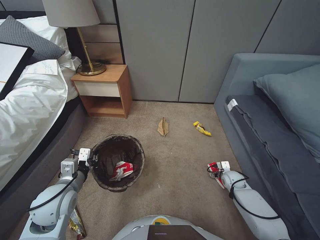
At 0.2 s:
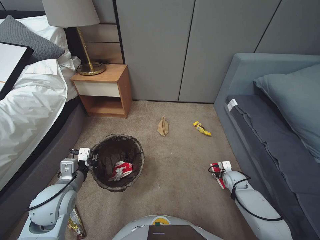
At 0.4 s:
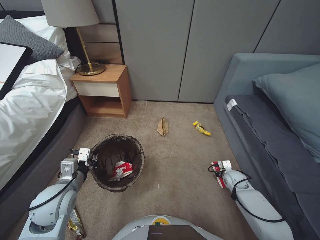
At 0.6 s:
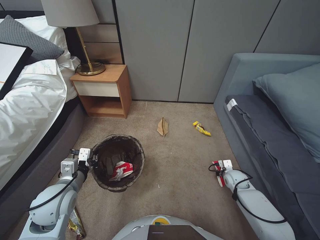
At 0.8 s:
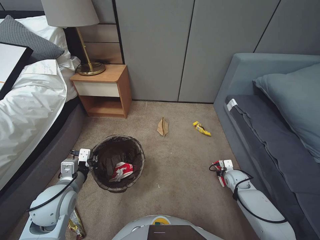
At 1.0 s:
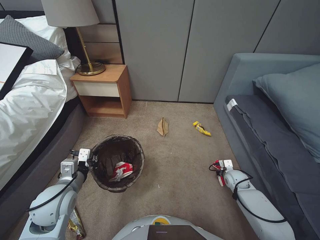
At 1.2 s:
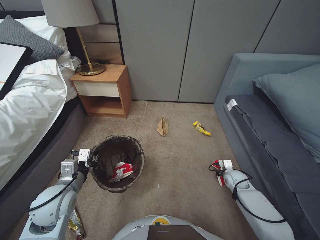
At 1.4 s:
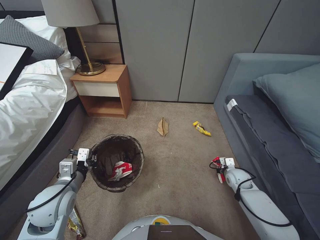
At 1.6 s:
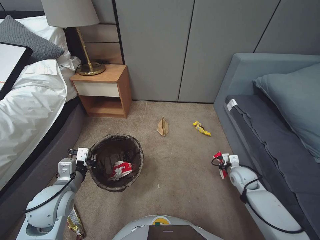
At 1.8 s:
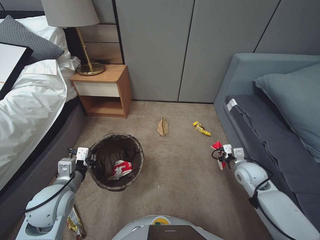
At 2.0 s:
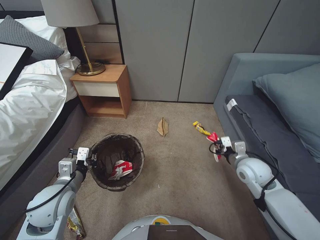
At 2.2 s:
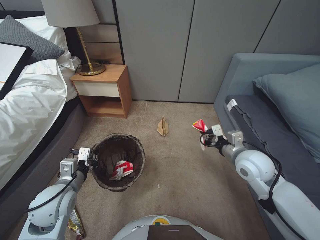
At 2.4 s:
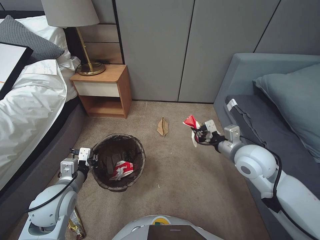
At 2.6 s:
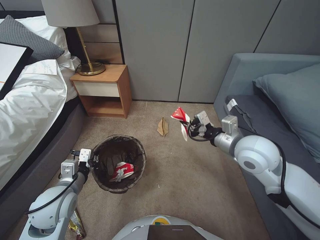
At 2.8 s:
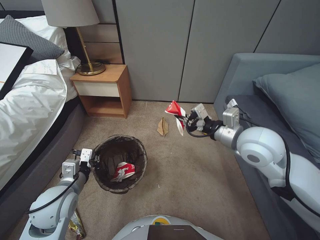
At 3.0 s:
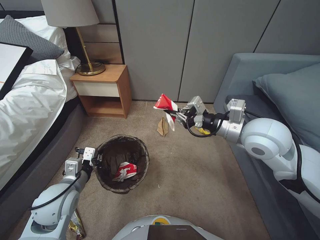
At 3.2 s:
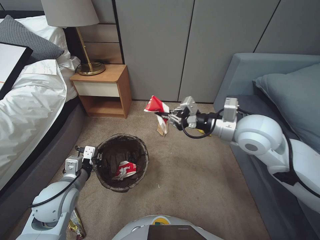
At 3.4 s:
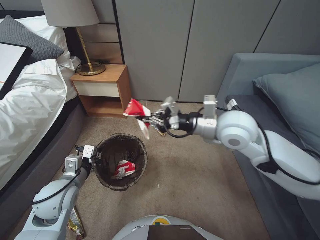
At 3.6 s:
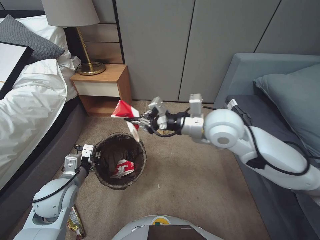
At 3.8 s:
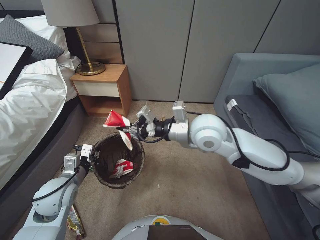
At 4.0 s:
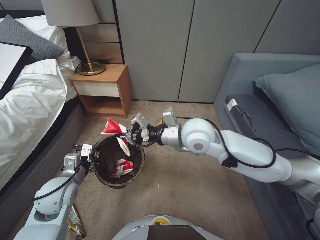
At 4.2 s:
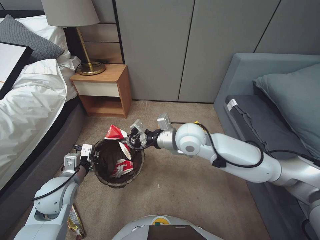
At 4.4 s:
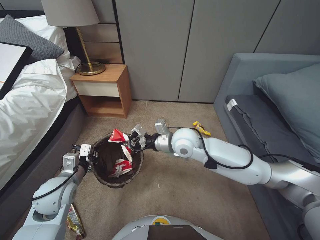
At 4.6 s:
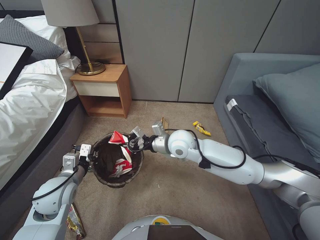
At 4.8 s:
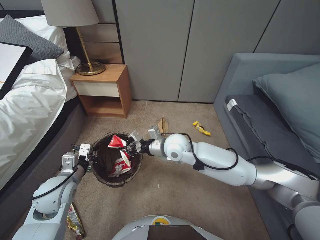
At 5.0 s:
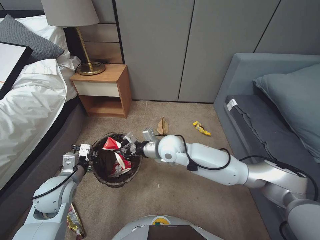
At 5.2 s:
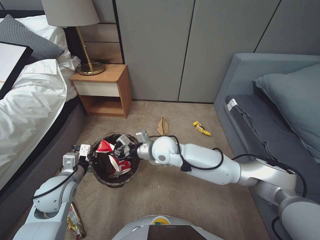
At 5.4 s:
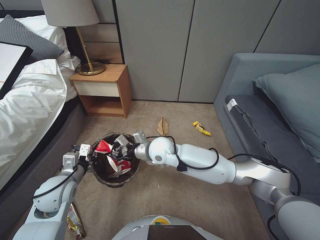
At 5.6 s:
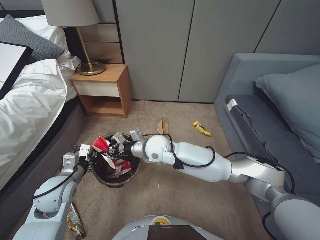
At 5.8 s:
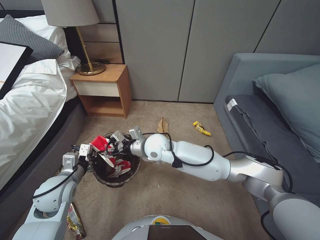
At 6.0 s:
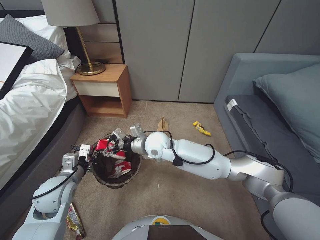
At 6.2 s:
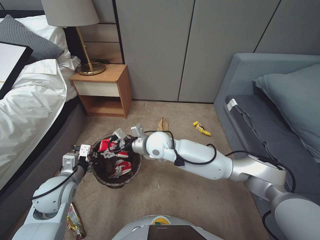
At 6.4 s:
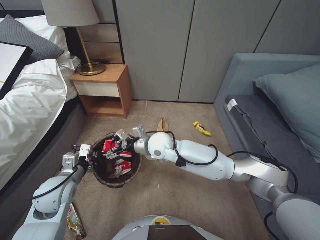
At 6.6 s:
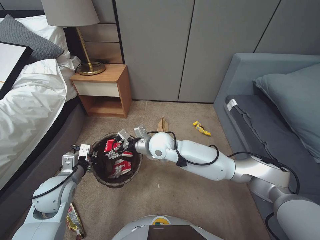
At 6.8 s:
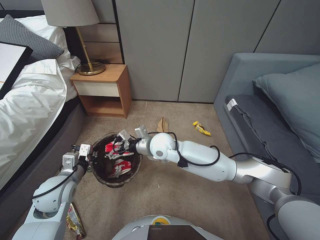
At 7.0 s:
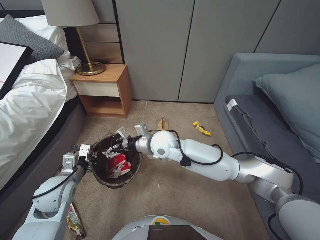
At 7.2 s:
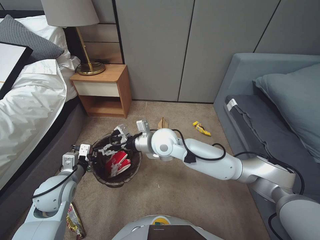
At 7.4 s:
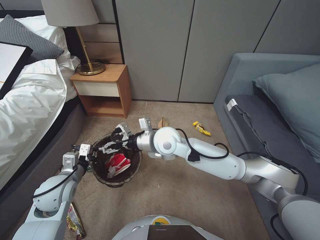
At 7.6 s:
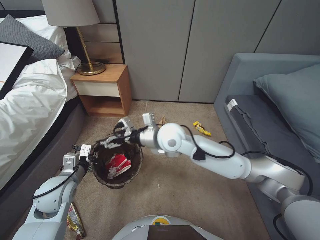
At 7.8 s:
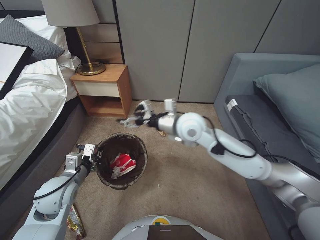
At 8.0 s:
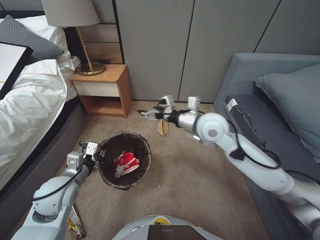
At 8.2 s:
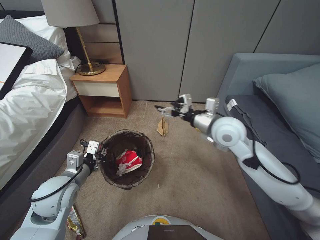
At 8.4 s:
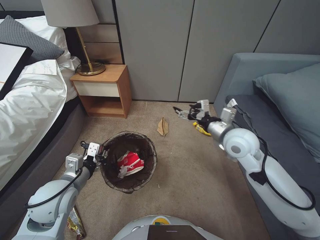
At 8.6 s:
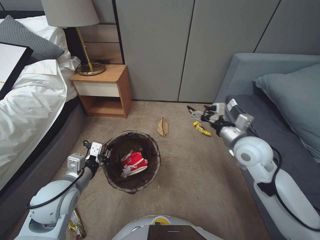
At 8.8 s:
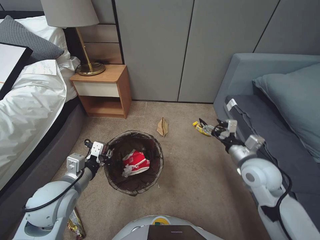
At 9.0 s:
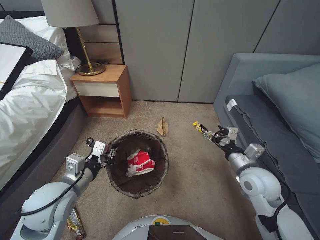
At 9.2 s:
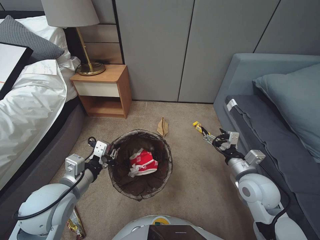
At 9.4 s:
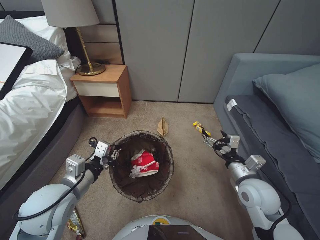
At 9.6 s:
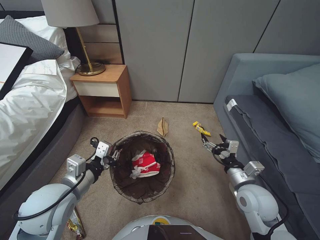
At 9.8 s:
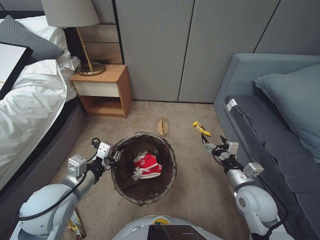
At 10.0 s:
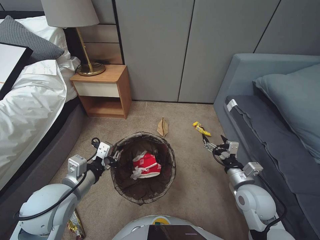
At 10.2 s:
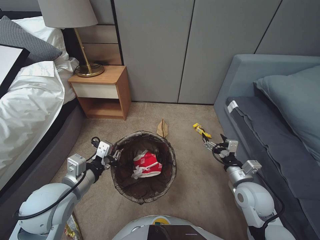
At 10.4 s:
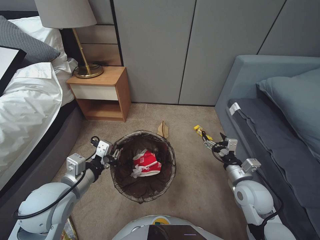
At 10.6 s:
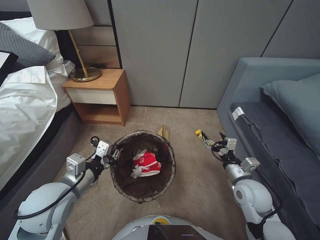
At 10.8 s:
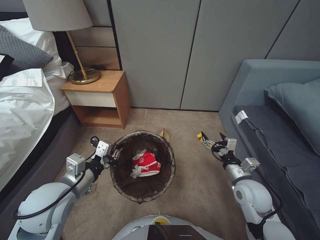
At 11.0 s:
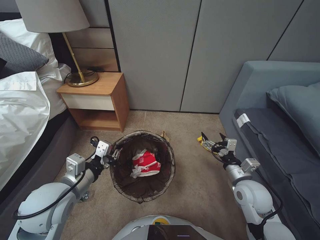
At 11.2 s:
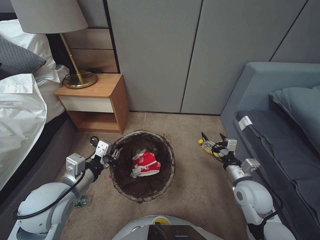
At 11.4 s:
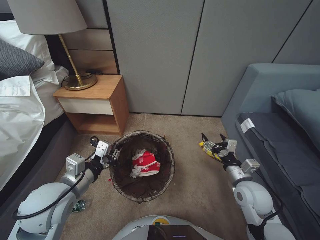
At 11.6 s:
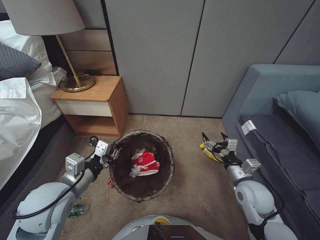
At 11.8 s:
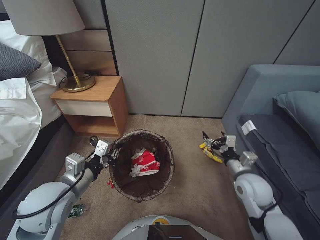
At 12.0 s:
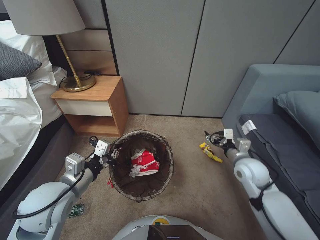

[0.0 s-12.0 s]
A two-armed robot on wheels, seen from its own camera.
Task of the whole recording: Pick up the trash bin, then pick up the garbage from the floor and place it into the trash bin.
0.0 to 1.6 s: The right gripper goes approximately 5 cm upward, and closes its fingers.
1.6 to 3.0 s: The right gripper shifts roughly 35 cm upward.
3.0 to 4.4 s: The right gripper travels to the left and downward by some 20 cm.
4.4 to 6.0 s: The right gripper heads to the left and downward, covering about 10 cm, and opens up.
6.0 to 7.6 s: The right gripper is displaced upward by approximately 5 cm.
7.6 to 9.0 s: The right gripper moves to the right, about 30 cm. Meanwhile the left gripper travels upward by approximately 5 cm.
9.0 to 10.4 s: The right gripper shifts roughly 5 cm downward.
10.4 to 12.0 s: The right gripper travels forward by about 5 cm.

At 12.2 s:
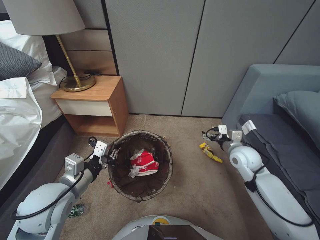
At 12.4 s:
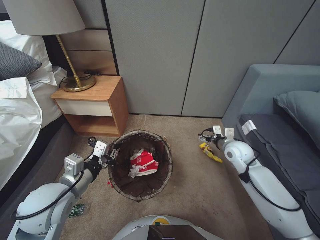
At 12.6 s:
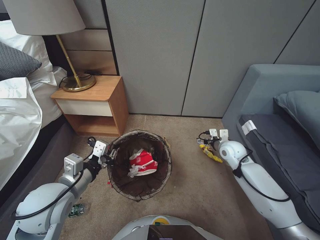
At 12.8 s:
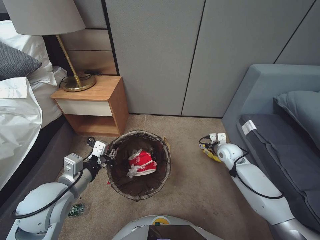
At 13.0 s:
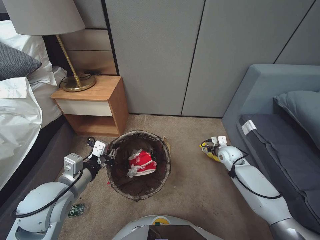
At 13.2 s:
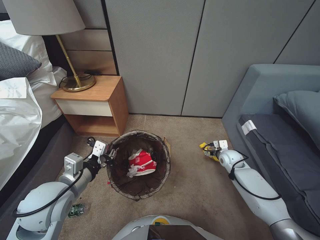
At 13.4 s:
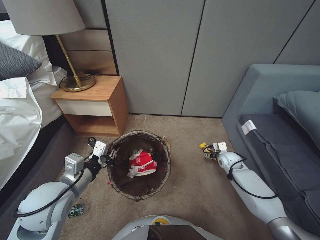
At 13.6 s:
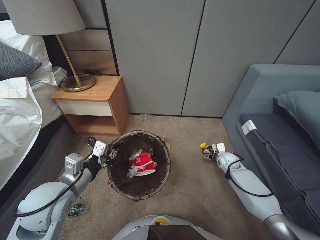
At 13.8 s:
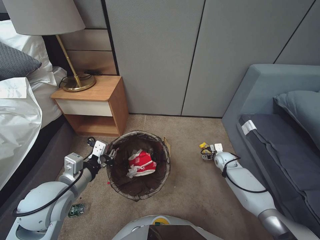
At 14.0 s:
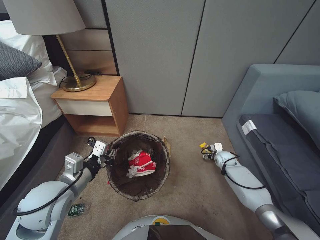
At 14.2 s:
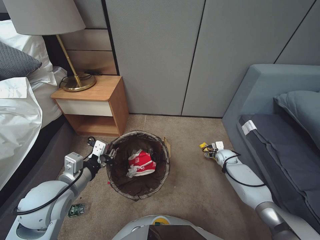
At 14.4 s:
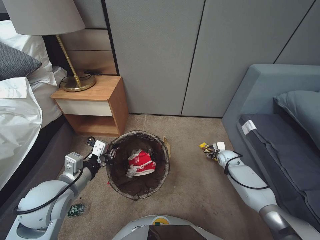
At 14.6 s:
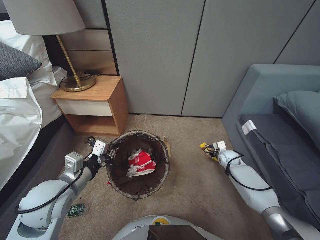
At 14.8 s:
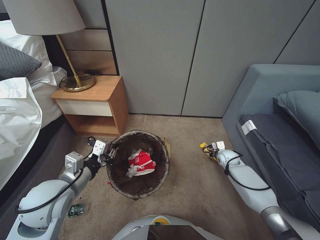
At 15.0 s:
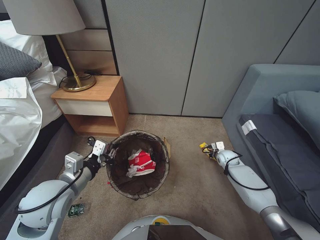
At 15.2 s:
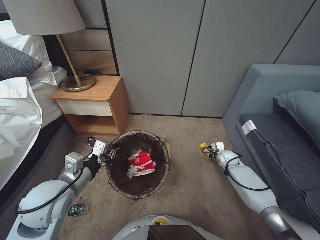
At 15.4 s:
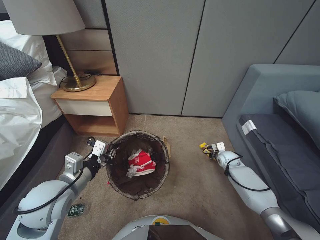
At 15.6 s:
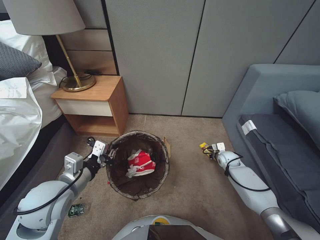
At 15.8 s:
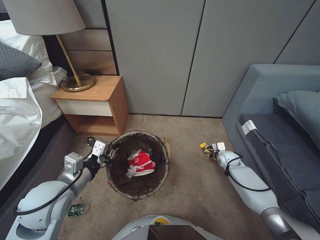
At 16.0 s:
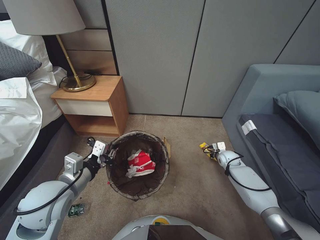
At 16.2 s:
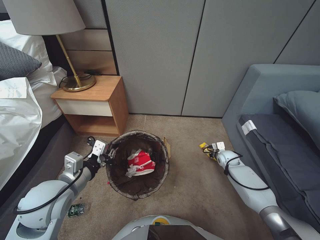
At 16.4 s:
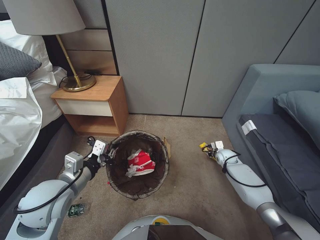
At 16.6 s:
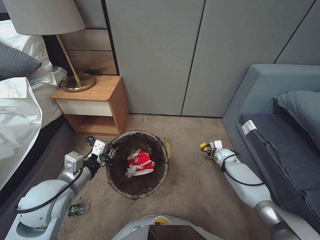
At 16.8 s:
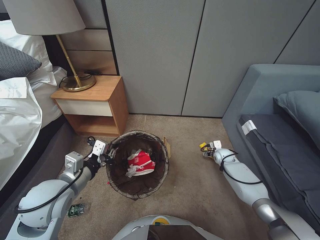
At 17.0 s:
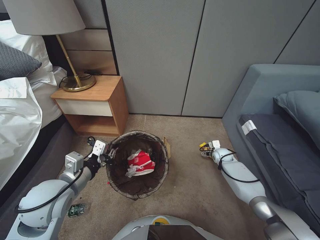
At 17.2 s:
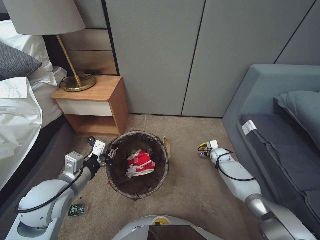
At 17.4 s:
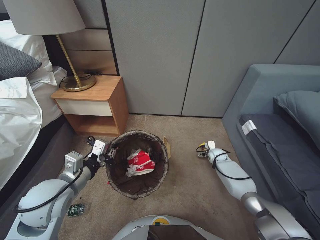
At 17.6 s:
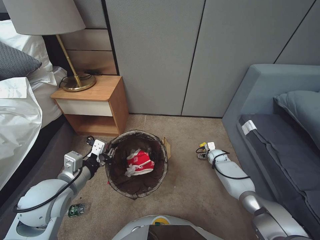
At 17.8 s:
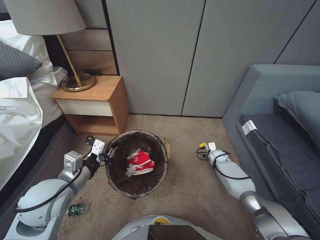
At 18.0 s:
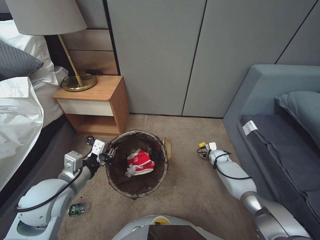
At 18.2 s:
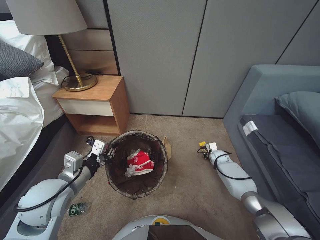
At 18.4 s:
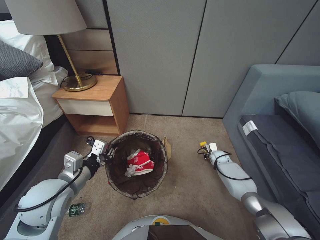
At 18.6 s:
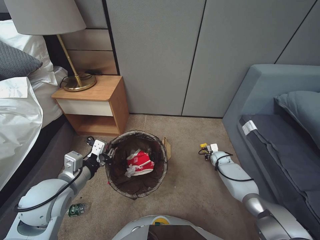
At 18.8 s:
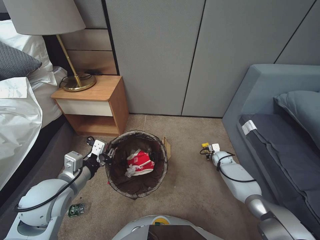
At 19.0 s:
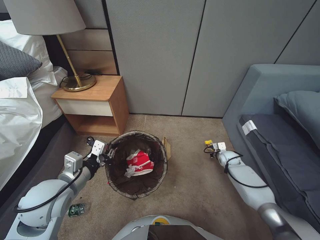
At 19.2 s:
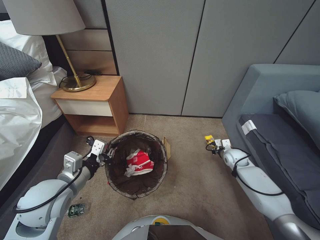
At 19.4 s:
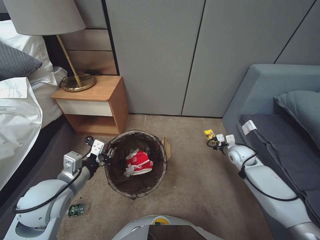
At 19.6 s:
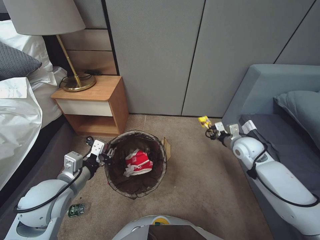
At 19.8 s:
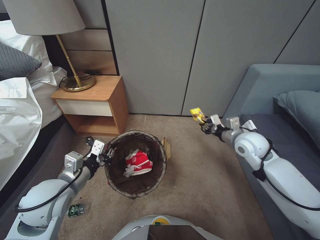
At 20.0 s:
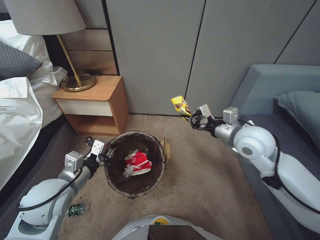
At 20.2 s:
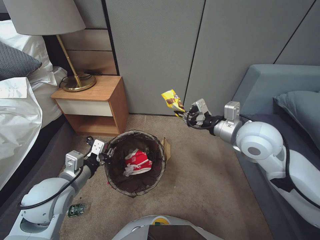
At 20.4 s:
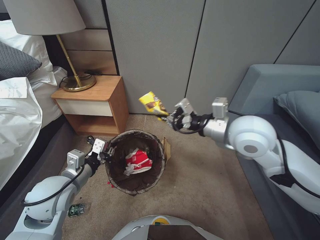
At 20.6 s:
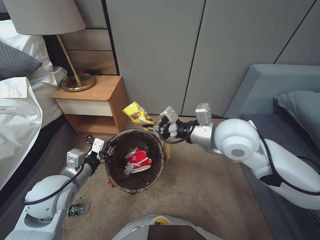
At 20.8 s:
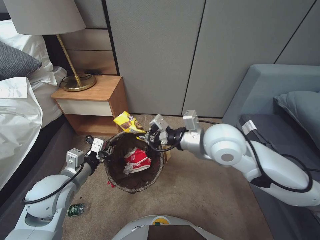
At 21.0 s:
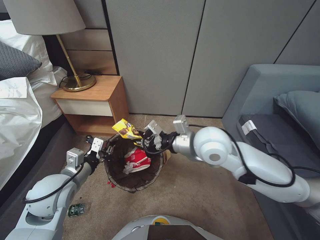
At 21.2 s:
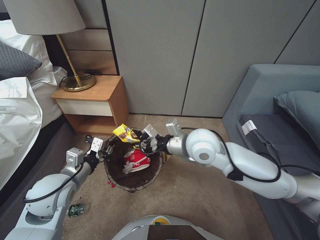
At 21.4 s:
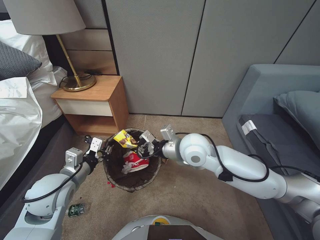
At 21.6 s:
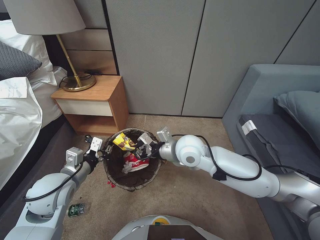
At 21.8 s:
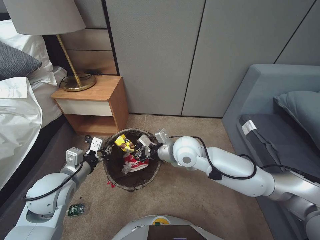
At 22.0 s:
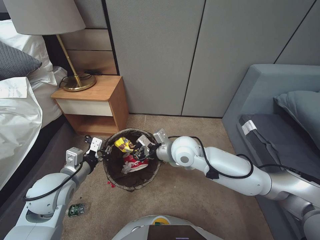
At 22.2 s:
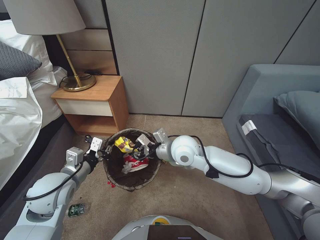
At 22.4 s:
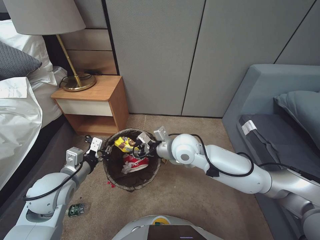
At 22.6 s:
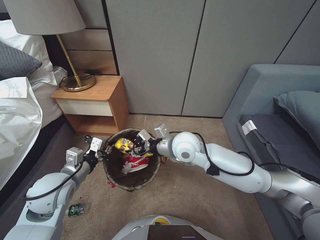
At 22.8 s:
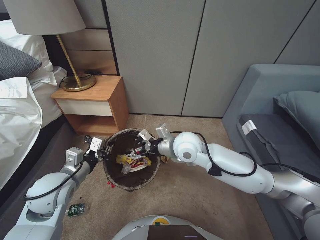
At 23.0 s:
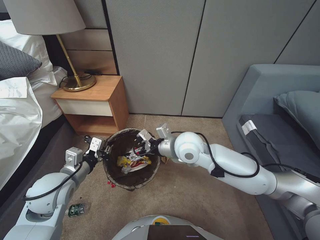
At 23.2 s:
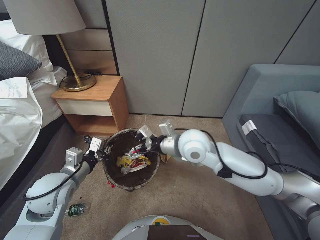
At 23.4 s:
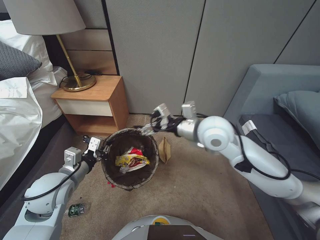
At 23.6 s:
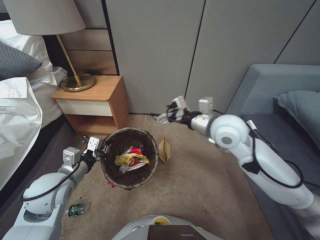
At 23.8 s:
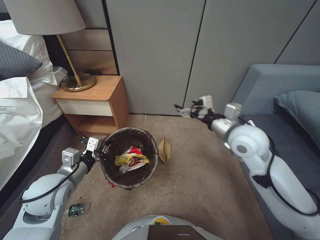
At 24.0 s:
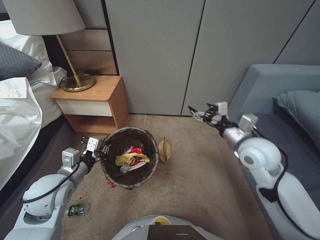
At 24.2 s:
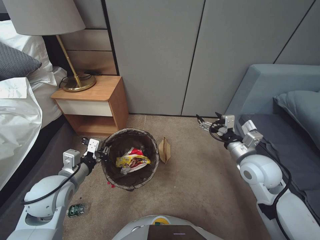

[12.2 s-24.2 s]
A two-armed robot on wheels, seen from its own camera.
Task of the whole recording: Pick up the trash bin, then pick up the garbage from the floor and place it into the trash bin.
12.2 to 13.8 s: The right gripper goes some 20 cm downward and forward.
13.8 to 15.2 s: The right gripper closes its fingers.
15.2 to 16.6 s: The right gripper opens.
16.6 to 18.2 s: The right gripper moves approximately 5 cm, and opens, then closes once more.
18.2 to 19.8 s: The right gripper heads upward, covering roughly 25 cm, and closes up.
19.8 to 21.2 s: The right gripper heads to the left and upward, covering about 25 cm.
21.2 to 22.6 s: The right gripper shifts about 5 cm downward, and opens its fingers.
22.6 to 24.2 s: The right gripper moves to the right, about 20 cm, and opens.
